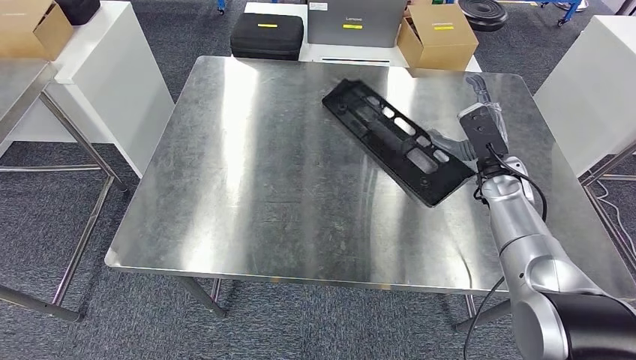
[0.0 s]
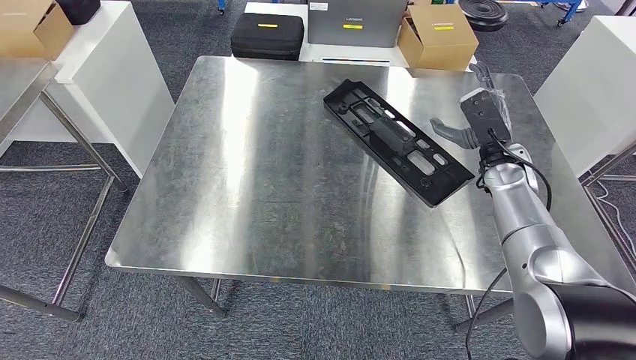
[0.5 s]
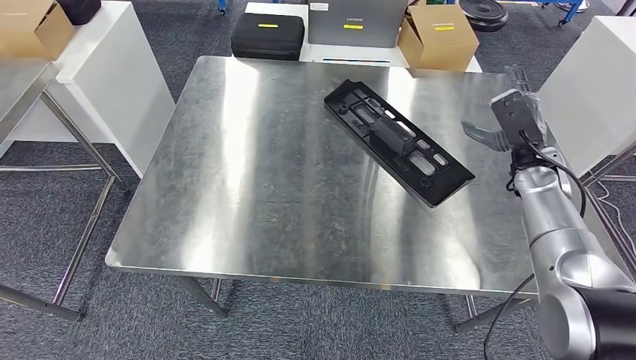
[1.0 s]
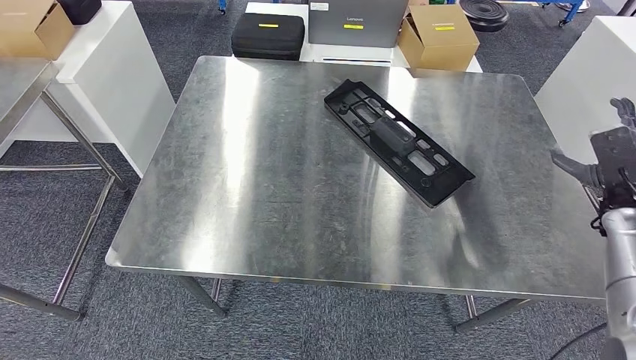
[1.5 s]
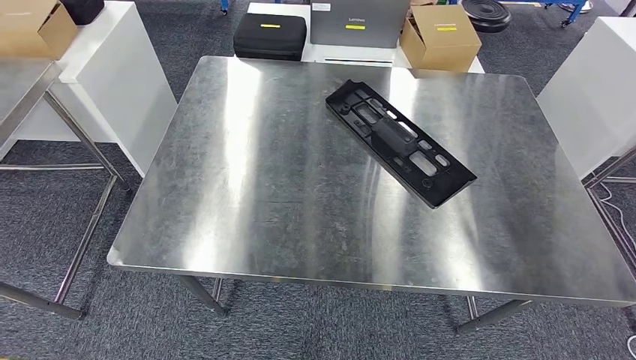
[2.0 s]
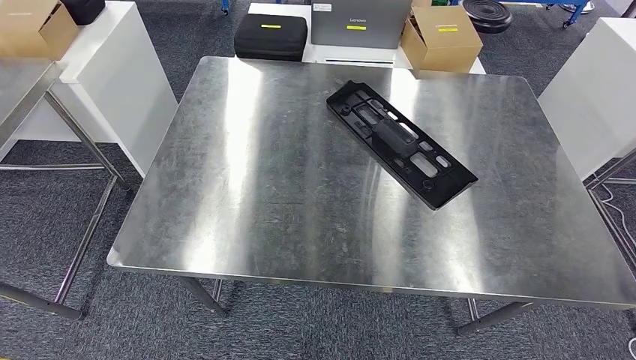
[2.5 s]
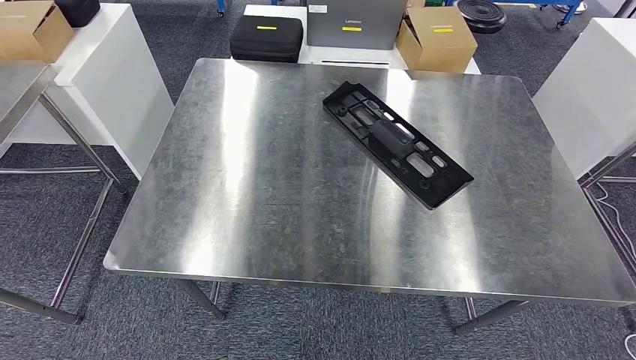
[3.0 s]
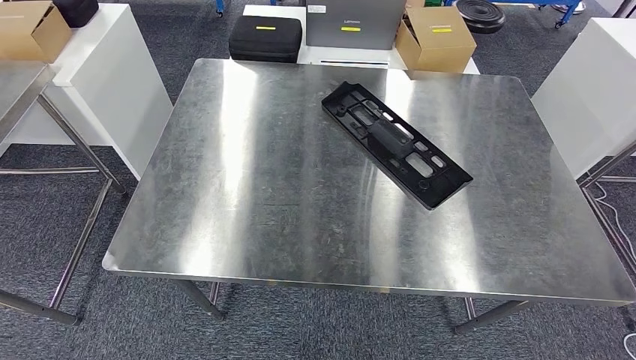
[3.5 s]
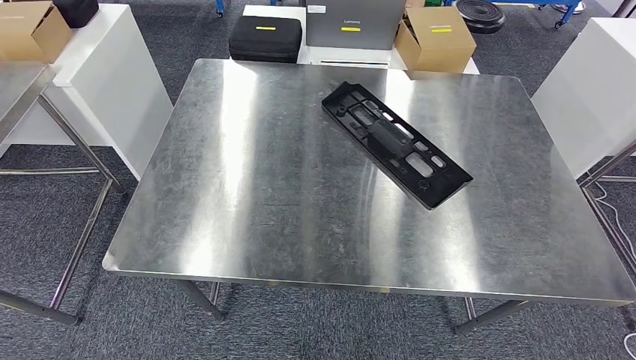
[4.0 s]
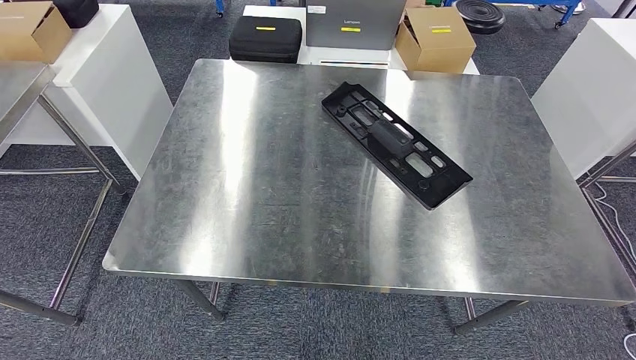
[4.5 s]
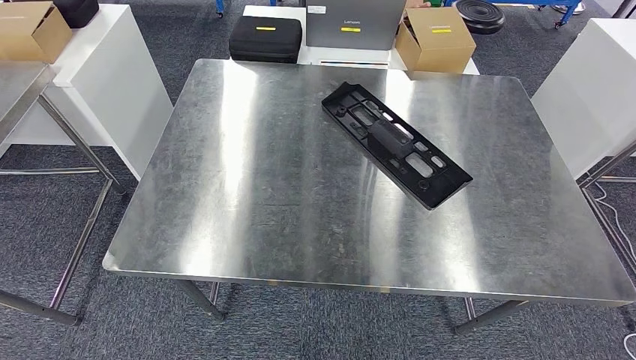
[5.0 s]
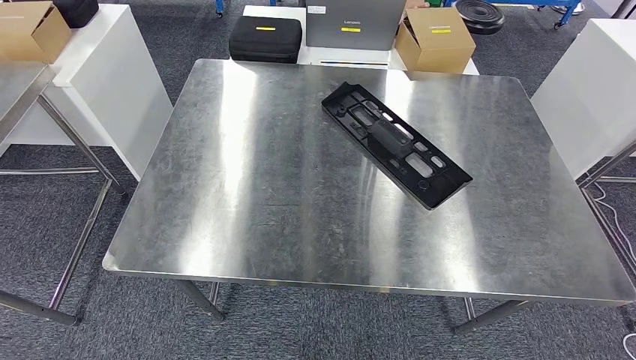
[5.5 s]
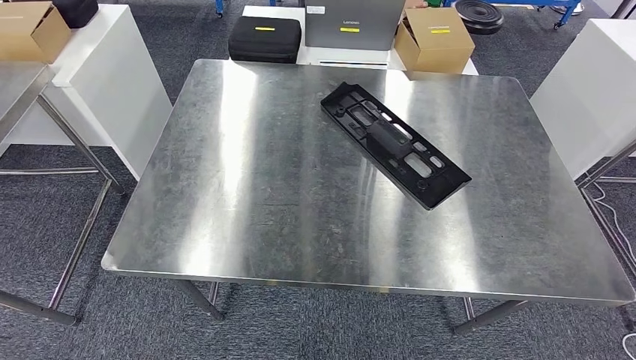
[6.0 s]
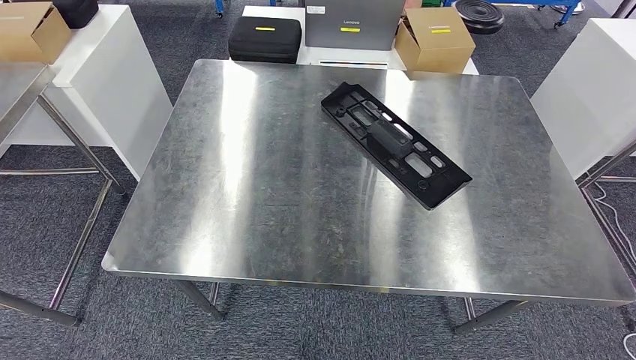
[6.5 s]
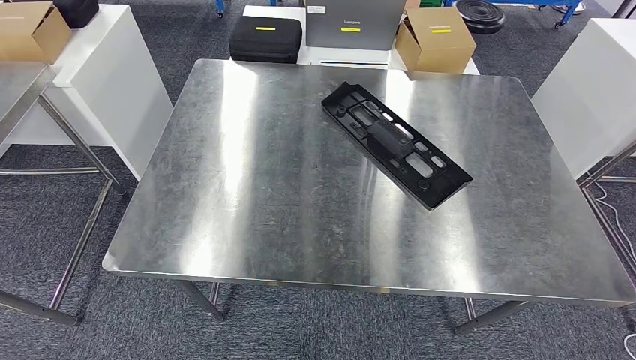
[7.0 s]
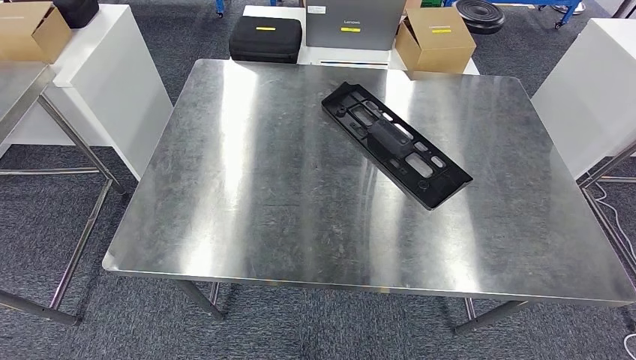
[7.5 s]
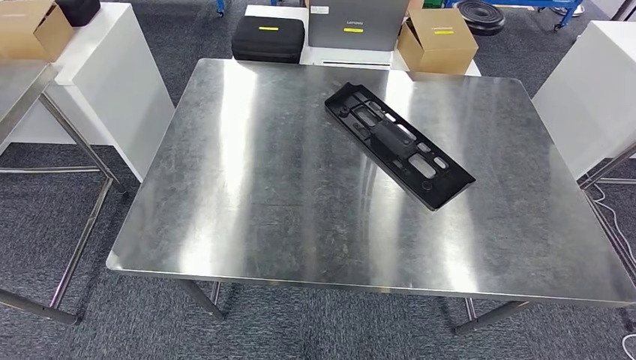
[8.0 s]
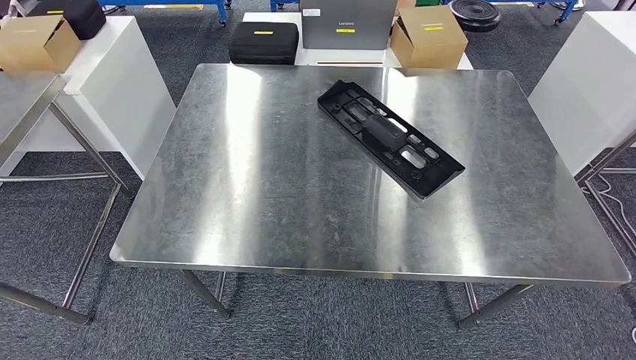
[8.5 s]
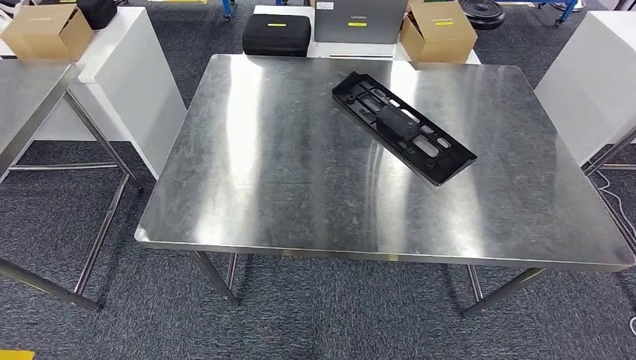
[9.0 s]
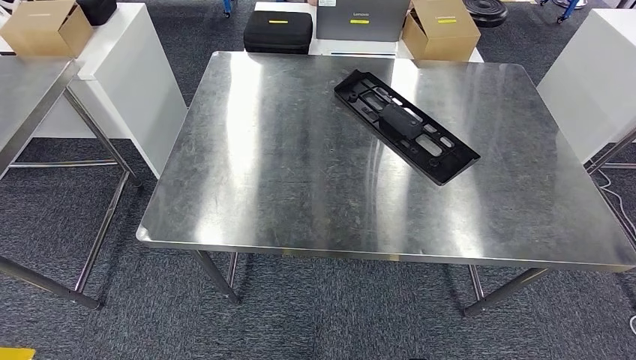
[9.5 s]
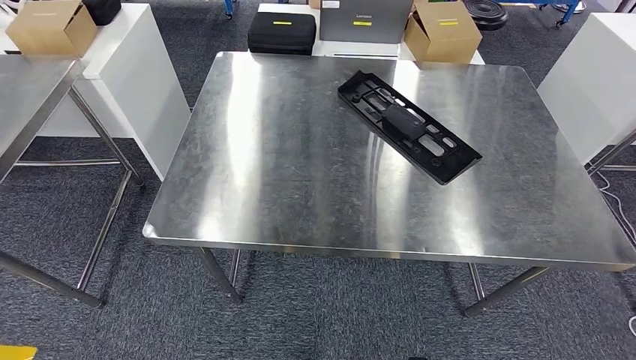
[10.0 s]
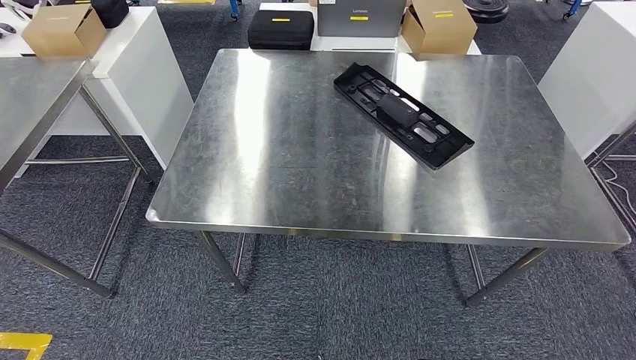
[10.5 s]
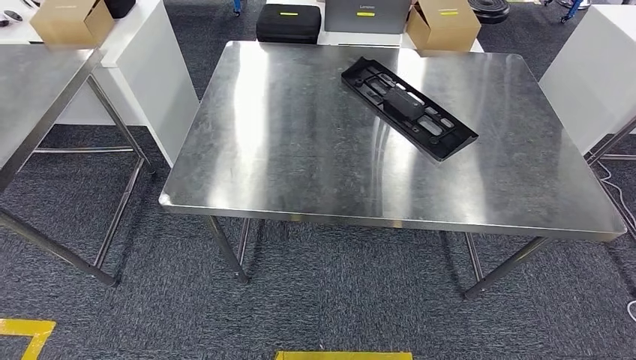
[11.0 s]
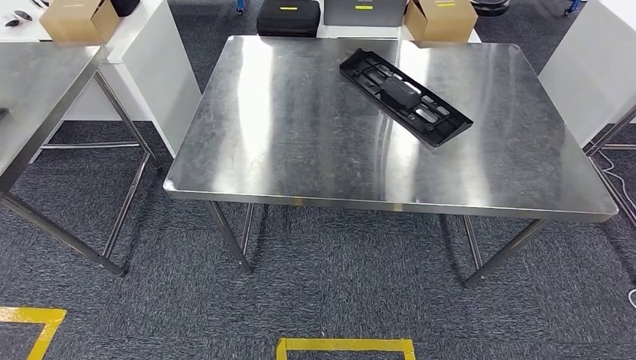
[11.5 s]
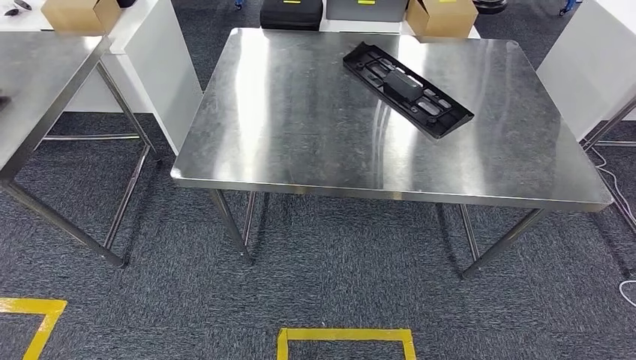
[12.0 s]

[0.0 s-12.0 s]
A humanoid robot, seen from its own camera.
Step, 0.0 to 3.0 s: Insert the large material into the corresponding slot on the workbench.
0.0 to 2.0 s: The right hand shifts about 35 cm to the right and backward.
2.0 to 4.0 s: The right hand goes approximately 35 cm backward, to the left and downward.
4.0 to 6.0 s: The right hand goes some 15 cm downward and to the left.
6.0 to 8.0 s: The right hand moves to the left and downward, approximately 15 cm.

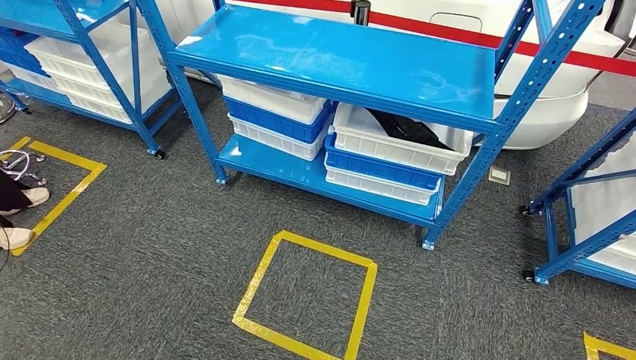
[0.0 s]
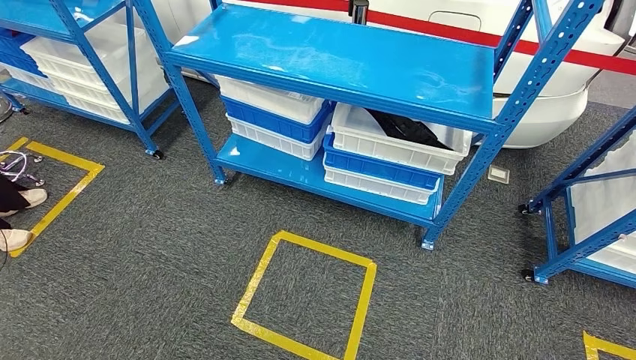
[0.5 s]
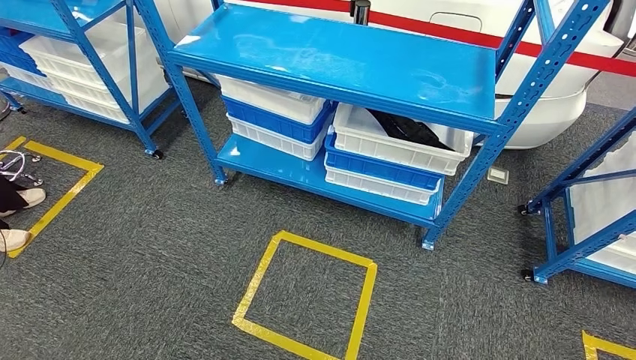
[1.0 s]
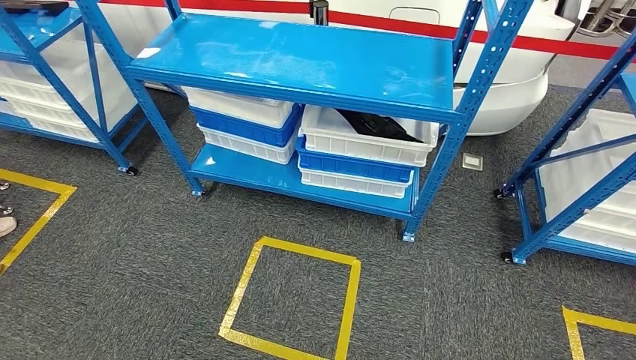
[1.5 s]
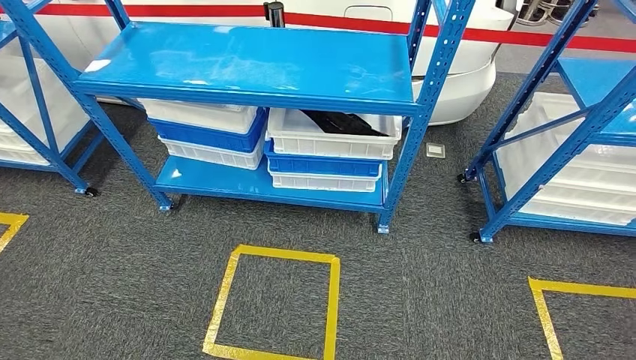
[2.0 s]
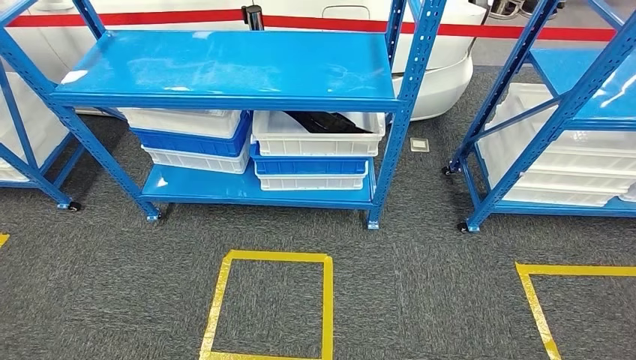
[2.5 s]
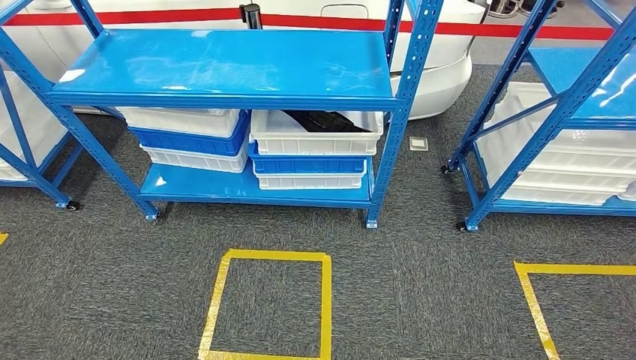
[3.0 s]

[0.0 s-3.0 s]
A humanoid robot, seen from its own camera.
Step, 0.0 to 3.0 s: Return to the initial position at the shelf.
